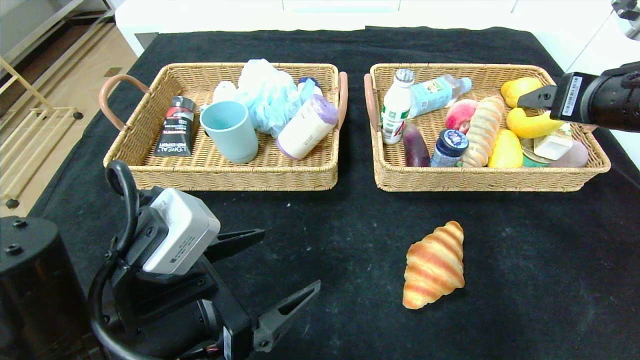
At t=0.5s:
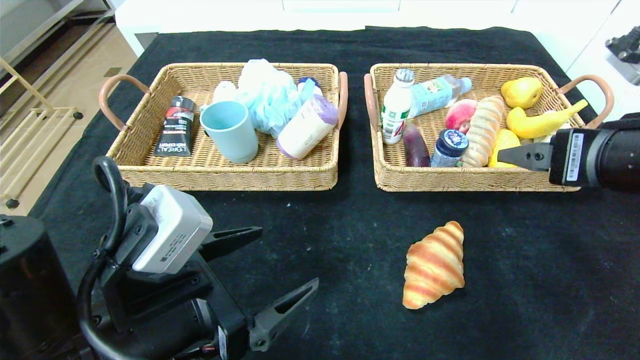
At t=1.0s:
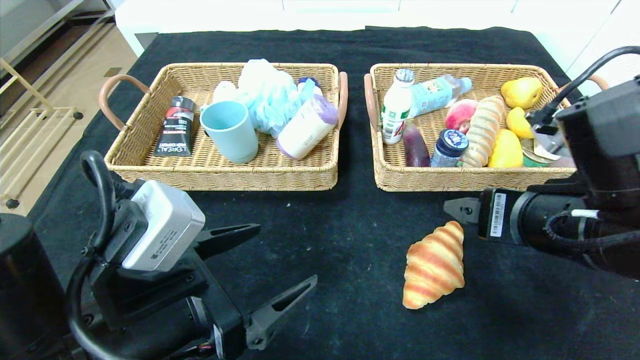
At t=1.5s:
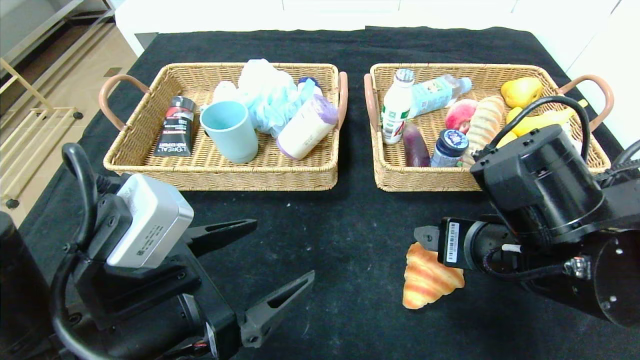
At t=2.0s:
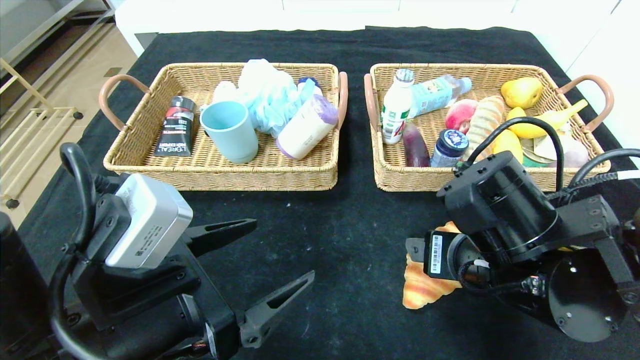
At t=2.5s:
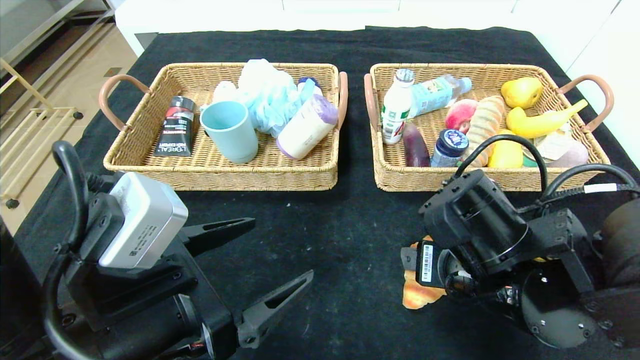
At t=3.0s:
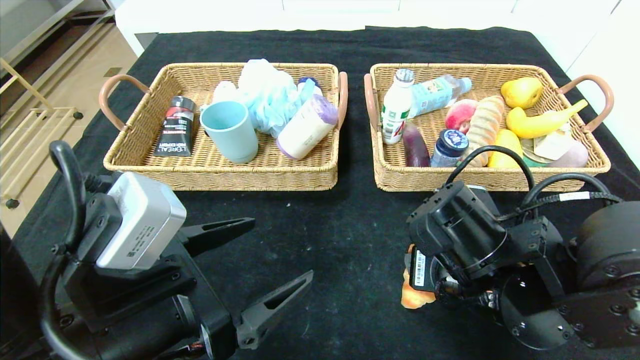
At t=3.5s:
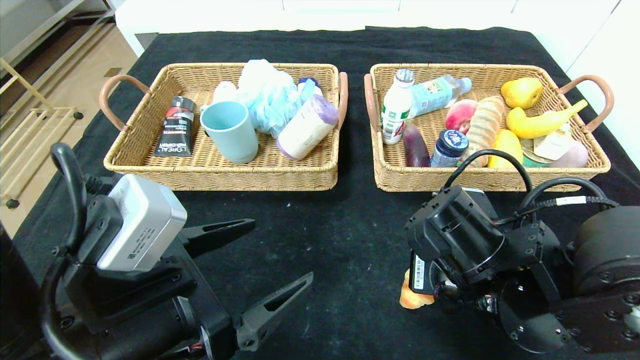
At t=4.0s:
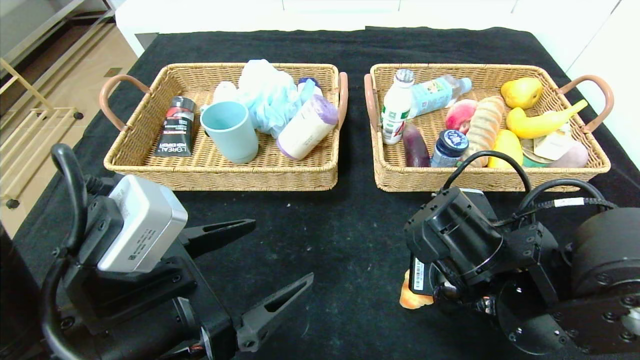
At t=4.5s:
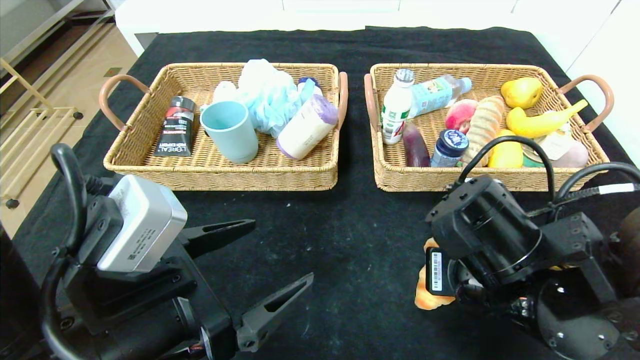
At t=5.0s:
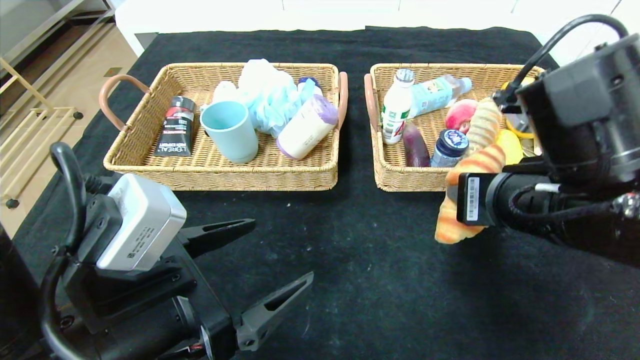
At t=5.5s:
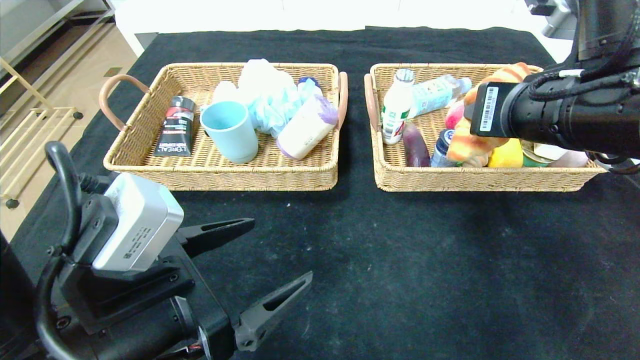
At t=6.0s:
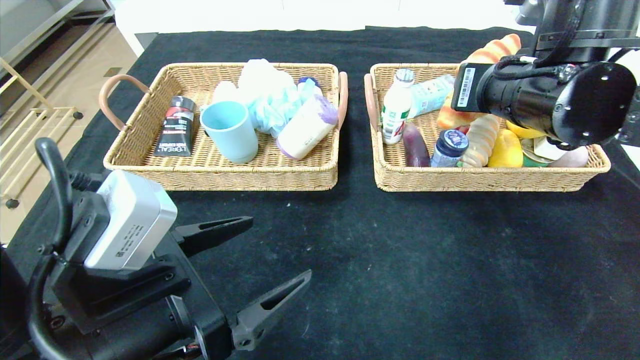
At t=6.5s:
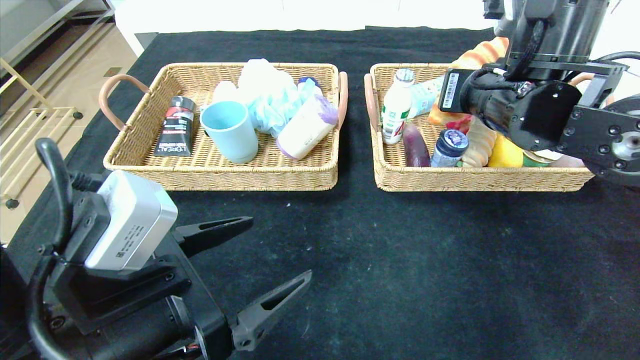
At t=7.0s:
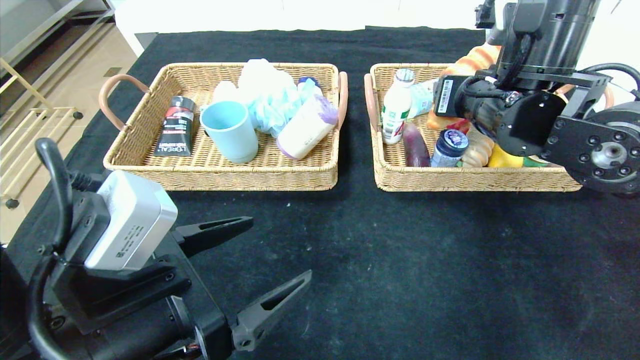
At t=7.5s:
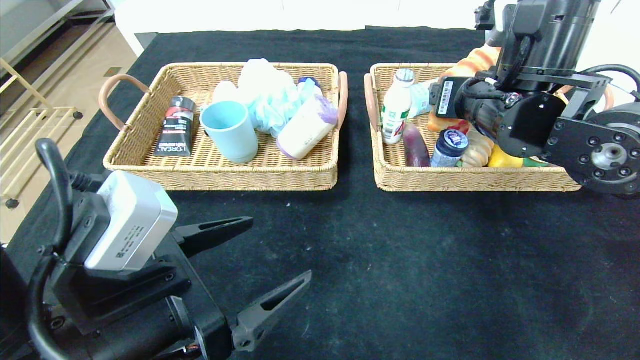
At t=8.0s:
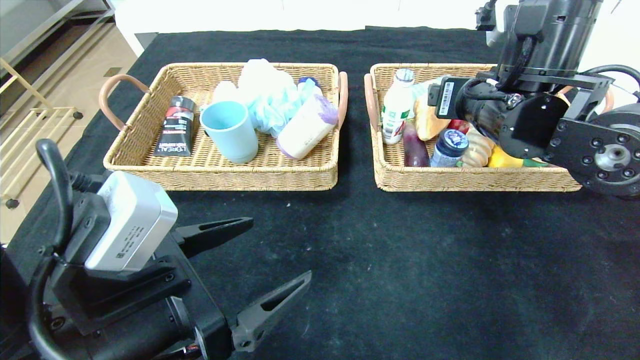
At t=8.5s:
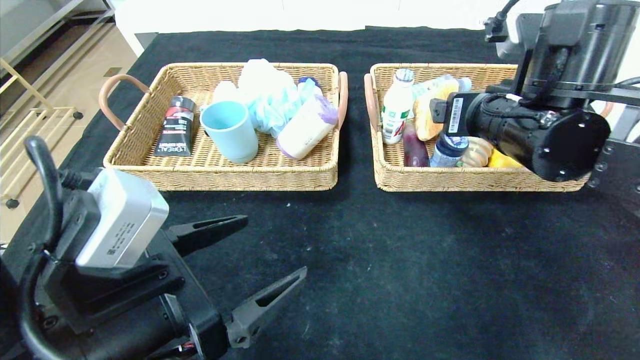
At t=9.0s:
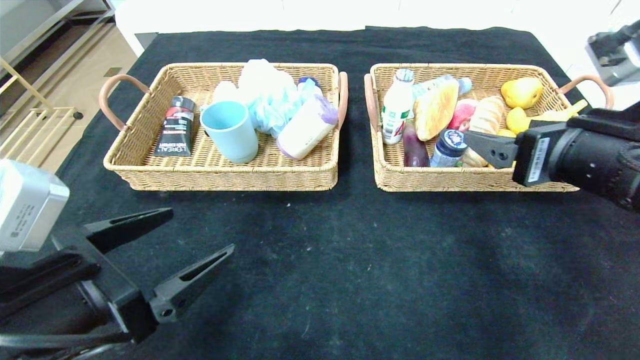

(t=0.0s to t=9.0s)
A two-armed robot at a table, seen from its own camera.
Step, t=0.0s - t=7.5s: Grasp the croissant and put it in the right basket.
t=0.0s - t=2.0s: The right gripper travels to the left, downward and backward by about 20 cm.
t=2.0s - t=4.5s: The right gripper closes.
t=4.5s - t=7.0s: The right gripper moves forward and upward, some 15 cm, and opens up.
t=7.0s - t=9.0s: The left gripper shifts some 5 cm to the left. The right gripper moves backward and to the right, about 15 cm.

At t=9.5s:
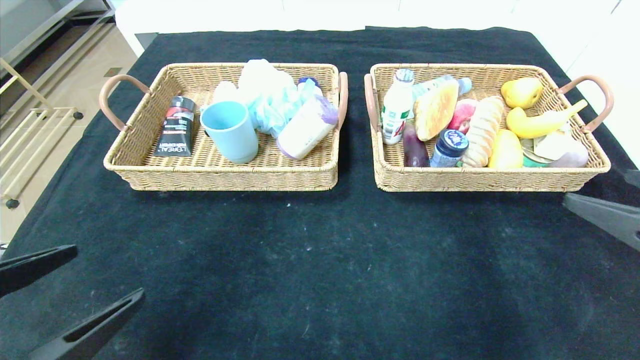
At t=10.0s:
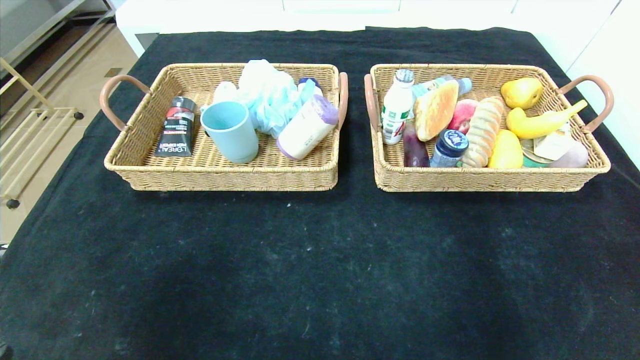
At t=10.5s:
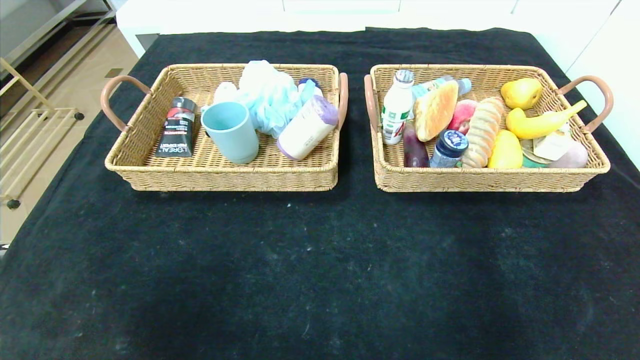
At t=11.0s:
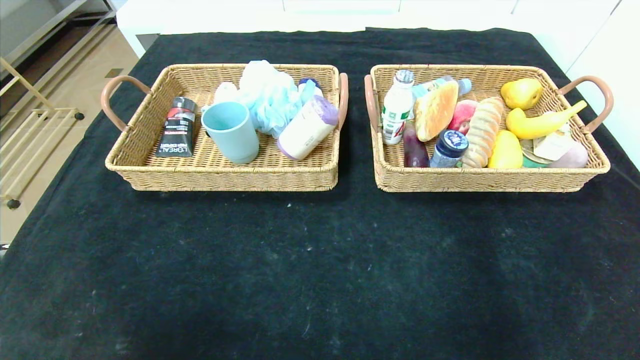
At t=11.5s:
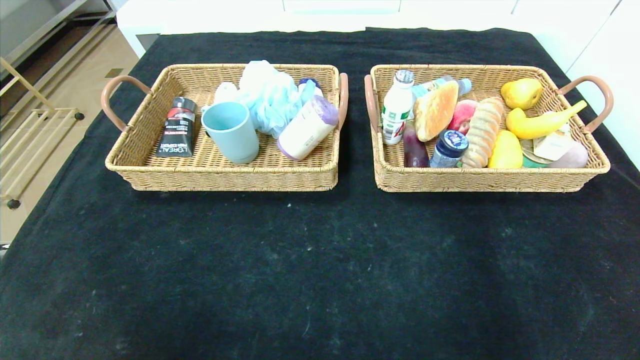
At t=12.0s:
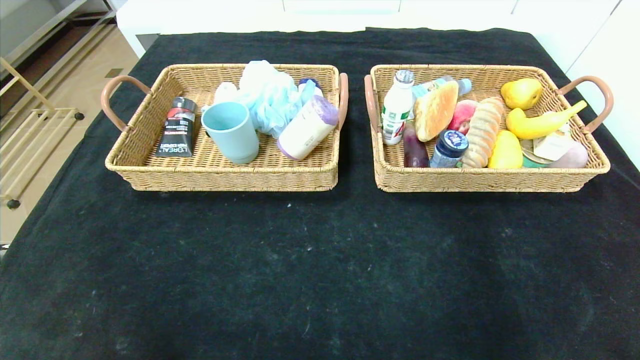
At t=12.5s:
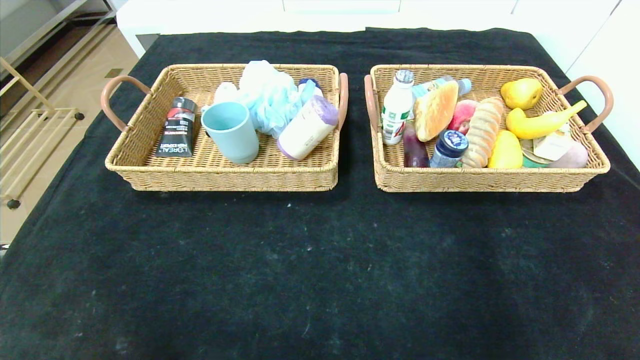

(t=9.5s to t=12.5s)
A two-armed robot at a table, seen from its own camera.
t=9.5s - t=11.0s: The right gripper heads backward and downward, covering about 20 cm, while the left gripper moves backward, some 15 cm.

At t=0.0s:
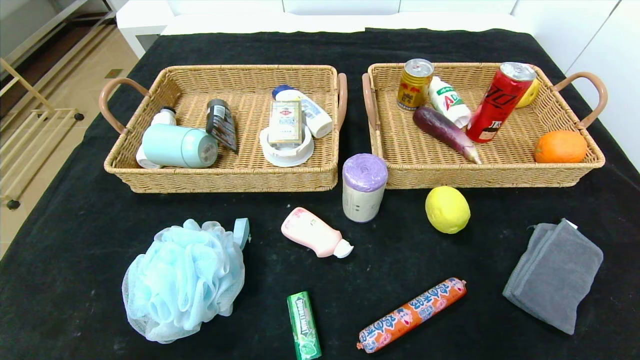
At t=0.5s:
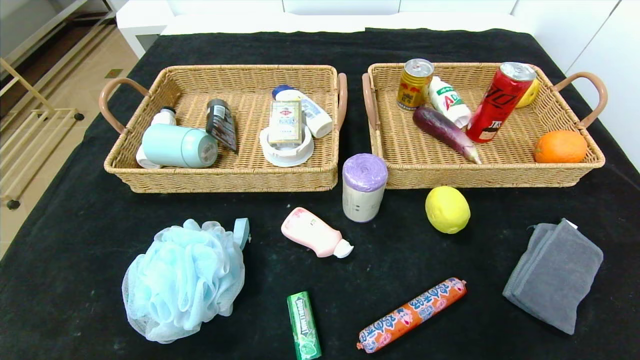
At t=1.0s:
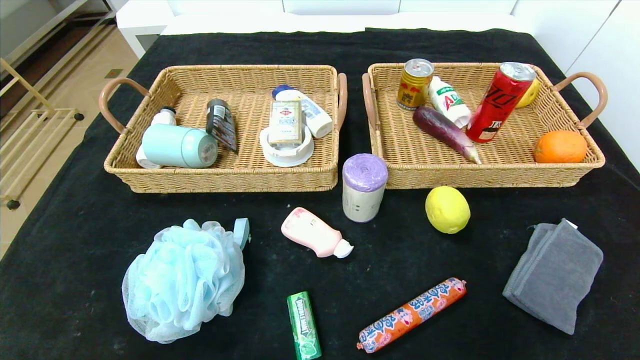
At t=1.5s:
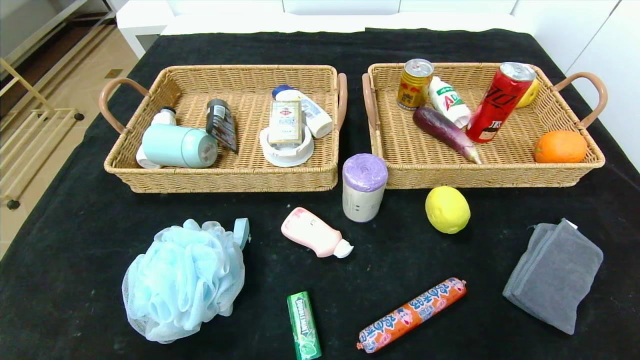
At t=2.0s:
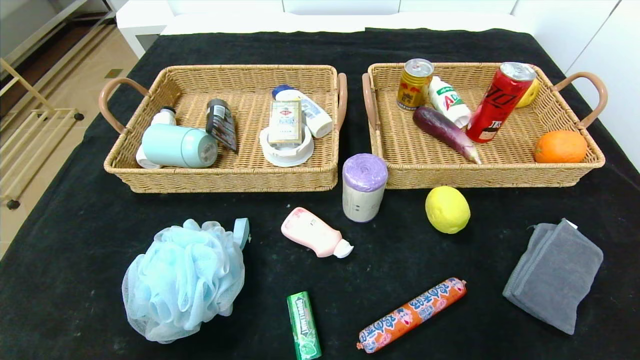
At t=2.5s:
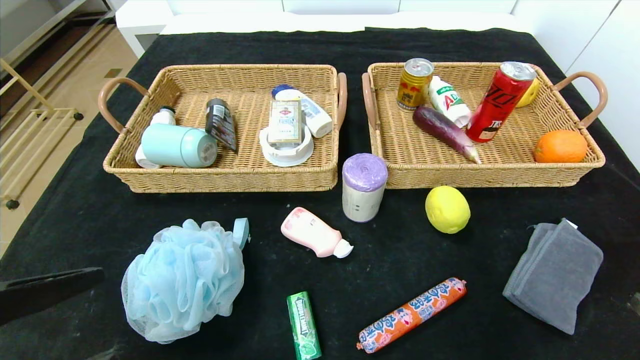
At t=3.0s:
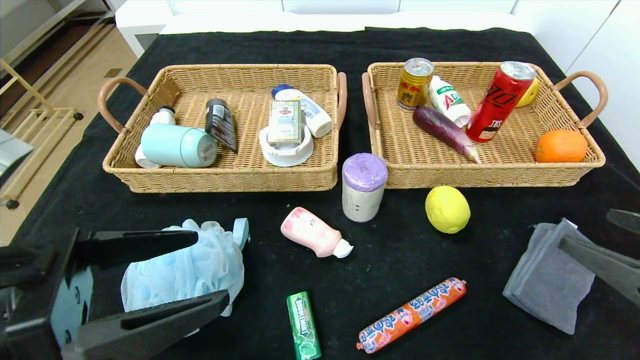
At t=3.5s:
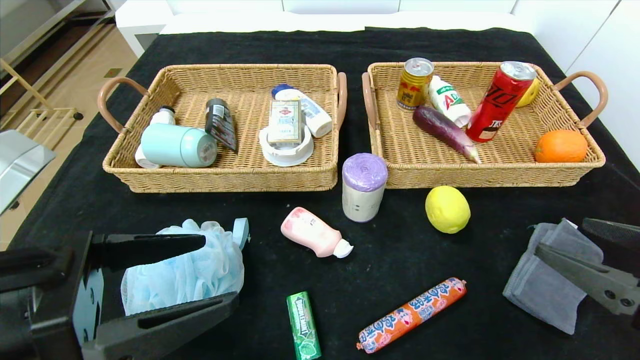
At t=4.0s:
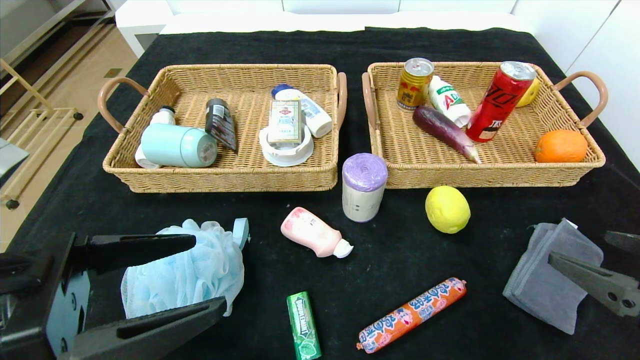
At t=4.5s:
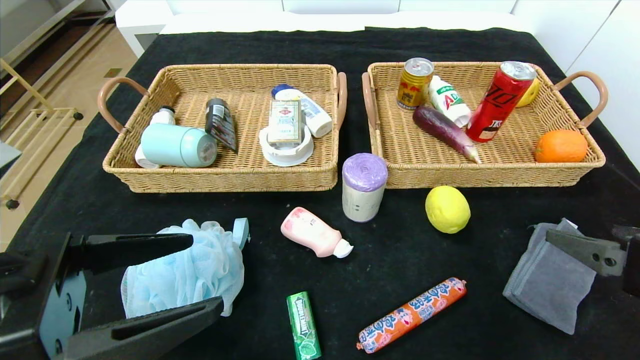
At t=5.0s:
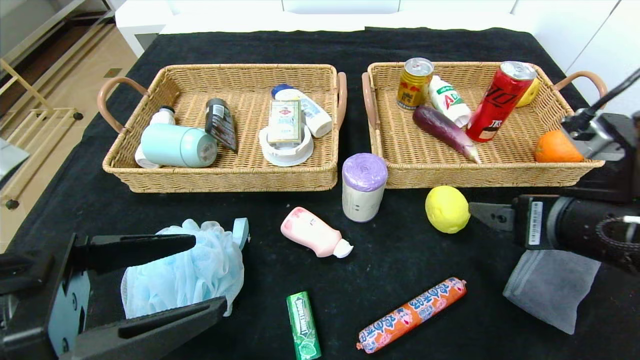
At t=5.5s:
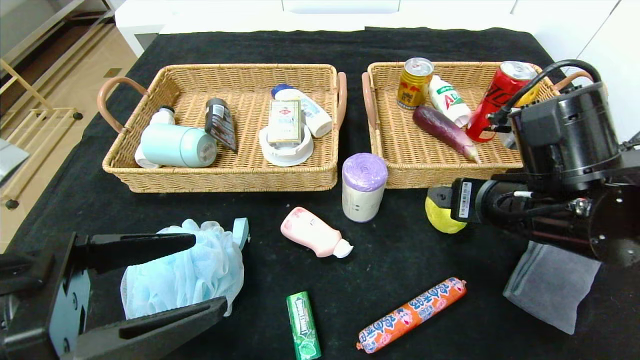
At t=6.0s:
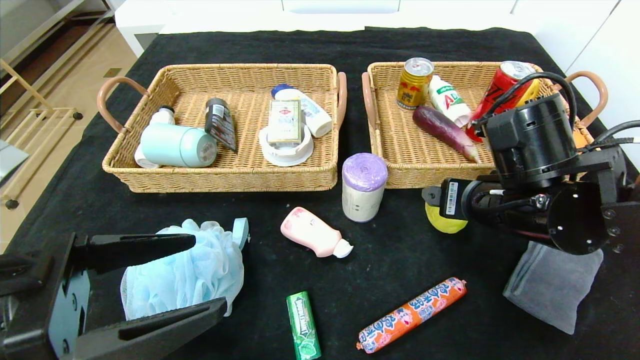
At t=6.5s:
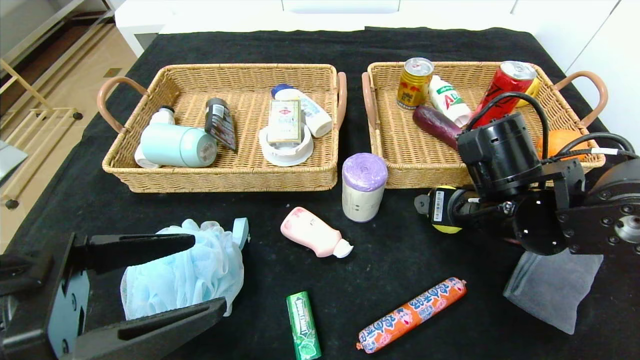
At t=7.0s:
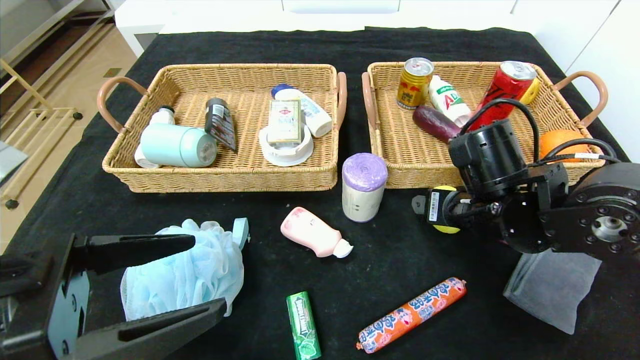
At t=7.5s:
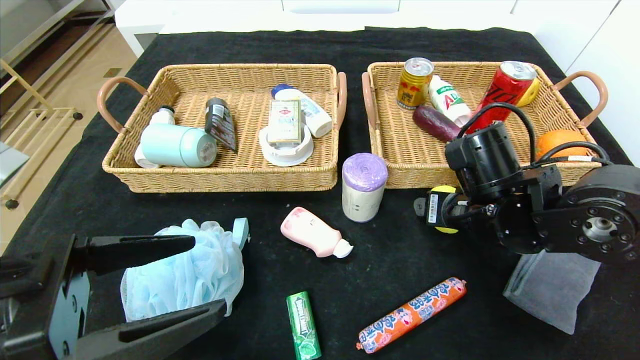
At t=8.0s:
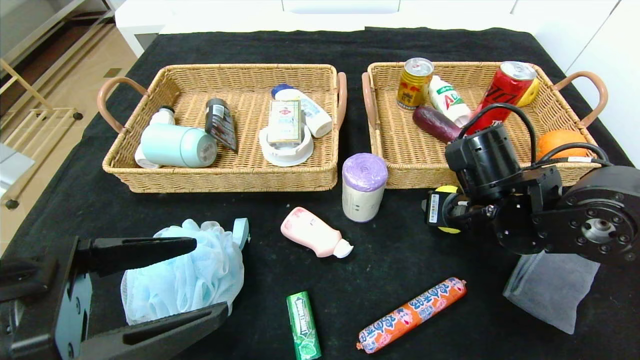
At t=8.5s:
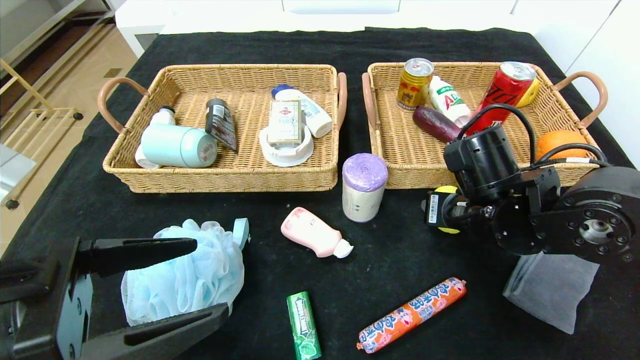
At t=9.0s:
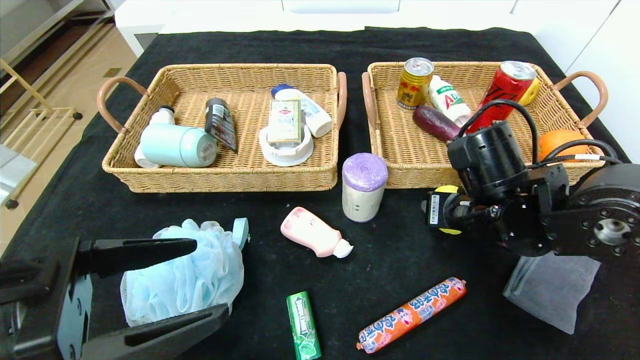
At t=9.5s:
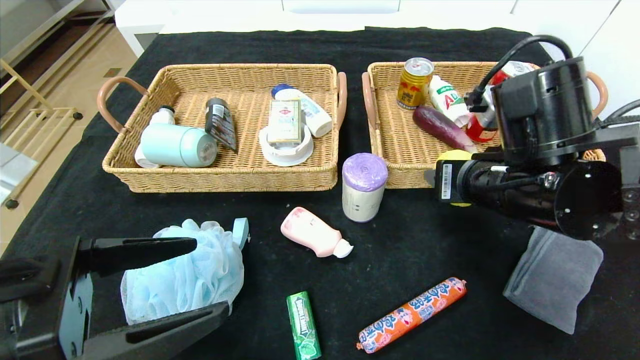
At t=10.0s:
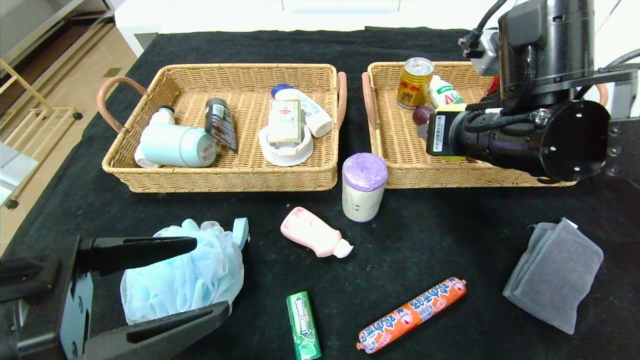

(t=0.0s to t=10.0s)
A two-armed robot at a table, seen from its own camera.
t=0.0s - t=2.0s: The left gripper goes approximately 10 cm upward.
t=2.0s - t=4.0s: The right gripper is displaced forward and upward by about 15 cm. The left gripper shifts about 15 cm forward, upward and to the right.
t=4.0s - t=6.0s: The right gripper moves forward and to the left, about 20 cm.
t=6.0s - t=8.0s: The right gripper closes.
t=8.0s - t=10.0s: The right gripper moves upward, about 10 cm.
